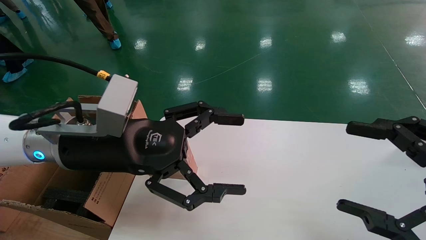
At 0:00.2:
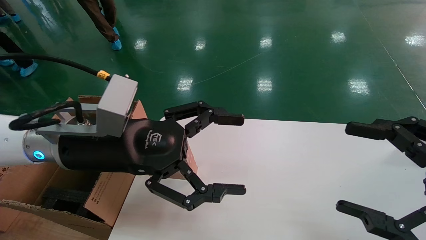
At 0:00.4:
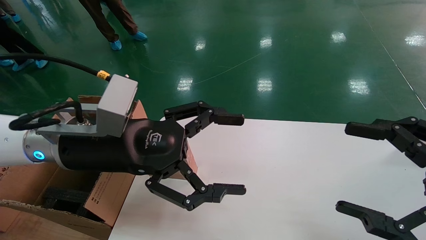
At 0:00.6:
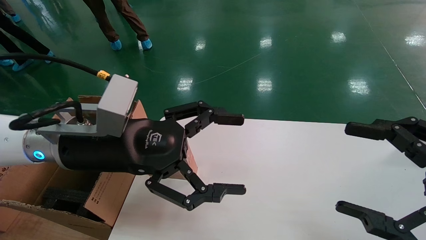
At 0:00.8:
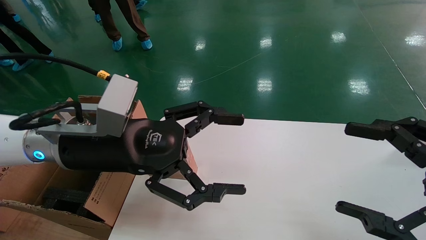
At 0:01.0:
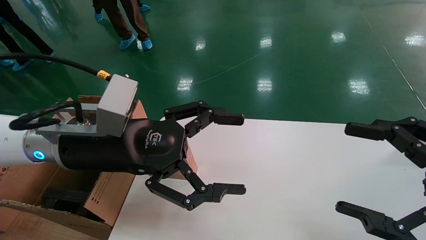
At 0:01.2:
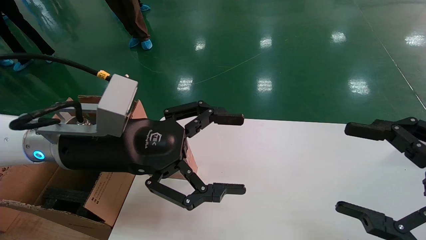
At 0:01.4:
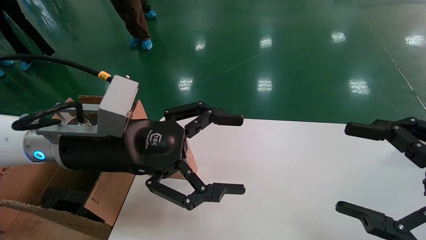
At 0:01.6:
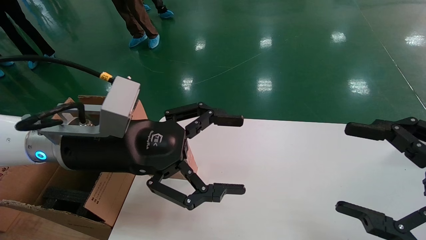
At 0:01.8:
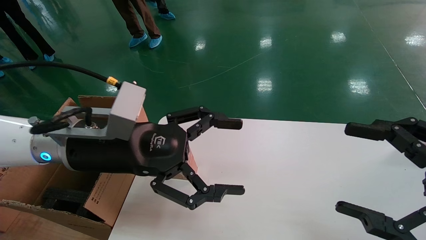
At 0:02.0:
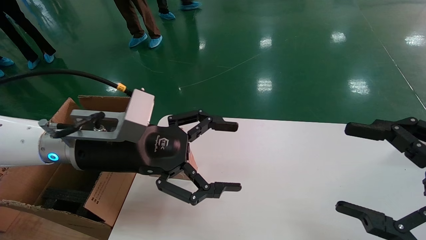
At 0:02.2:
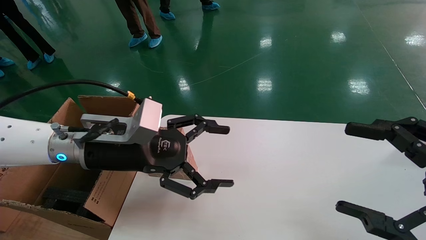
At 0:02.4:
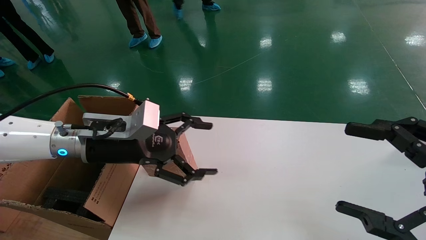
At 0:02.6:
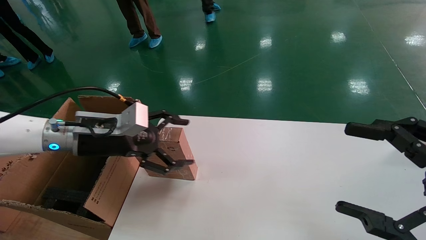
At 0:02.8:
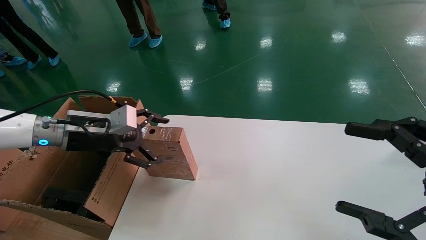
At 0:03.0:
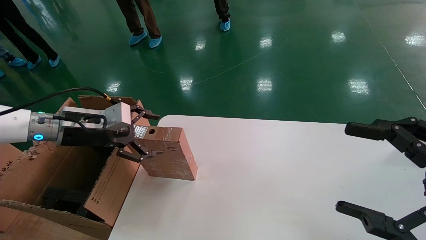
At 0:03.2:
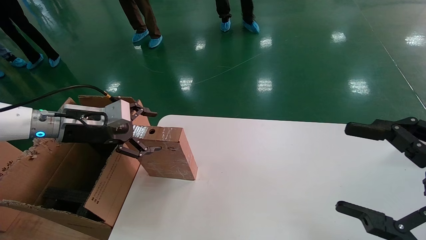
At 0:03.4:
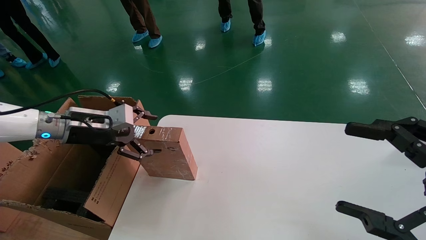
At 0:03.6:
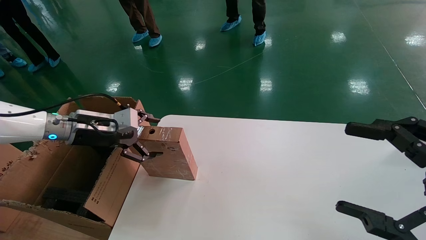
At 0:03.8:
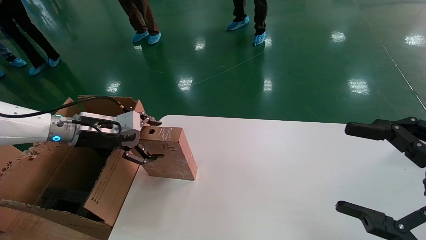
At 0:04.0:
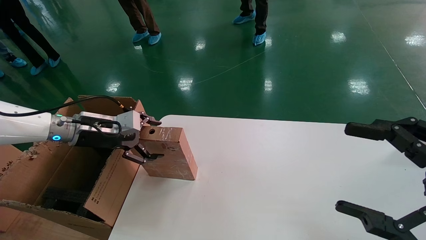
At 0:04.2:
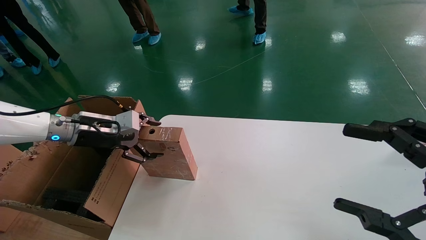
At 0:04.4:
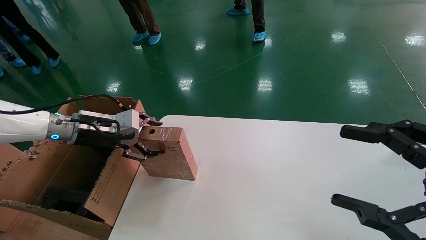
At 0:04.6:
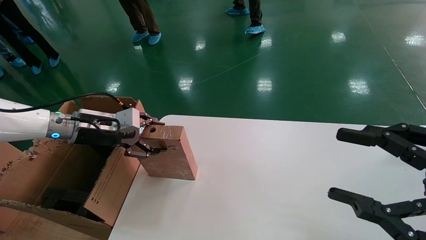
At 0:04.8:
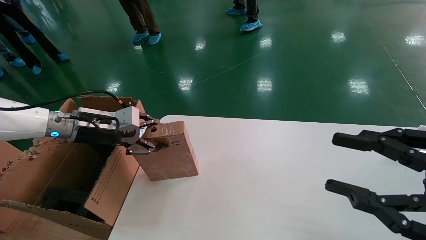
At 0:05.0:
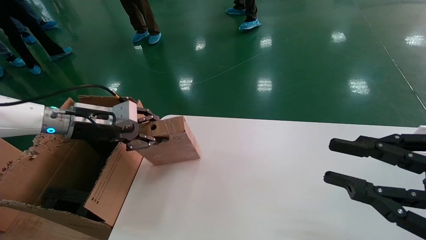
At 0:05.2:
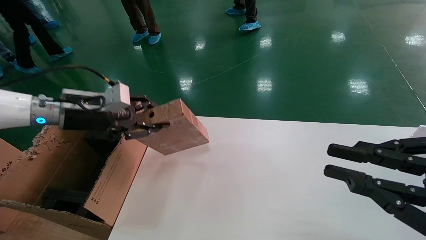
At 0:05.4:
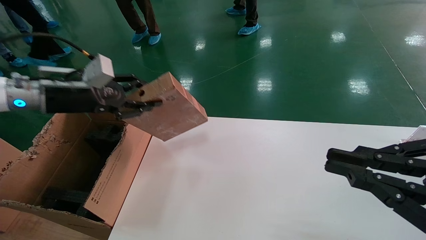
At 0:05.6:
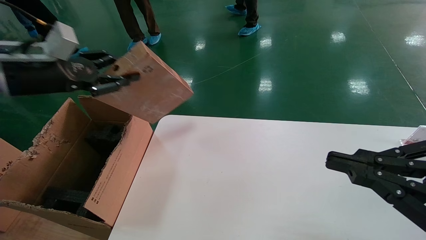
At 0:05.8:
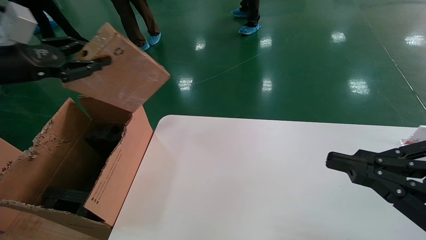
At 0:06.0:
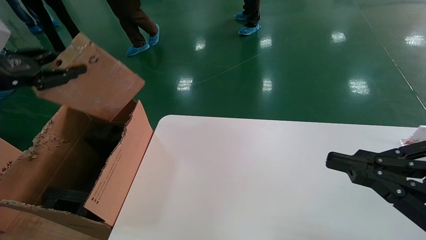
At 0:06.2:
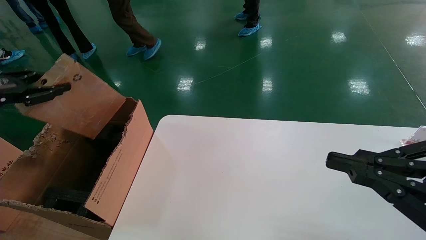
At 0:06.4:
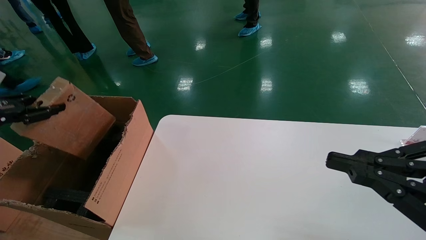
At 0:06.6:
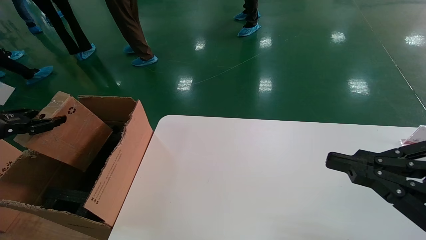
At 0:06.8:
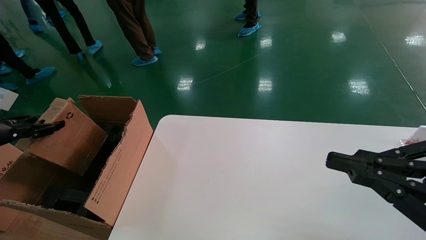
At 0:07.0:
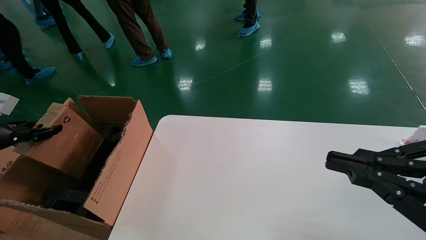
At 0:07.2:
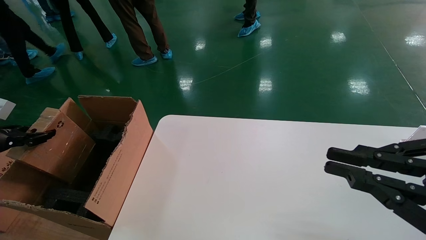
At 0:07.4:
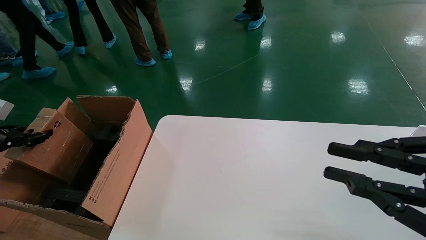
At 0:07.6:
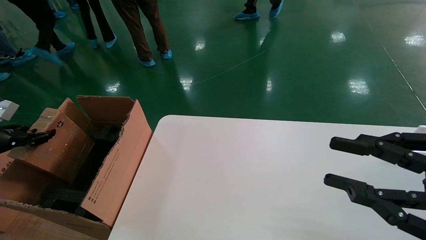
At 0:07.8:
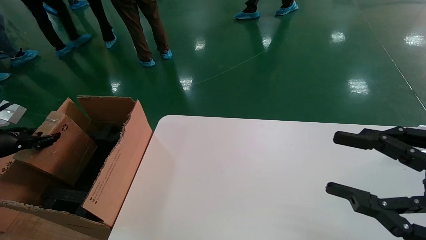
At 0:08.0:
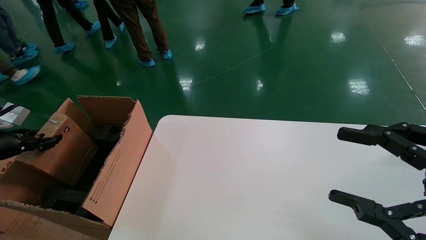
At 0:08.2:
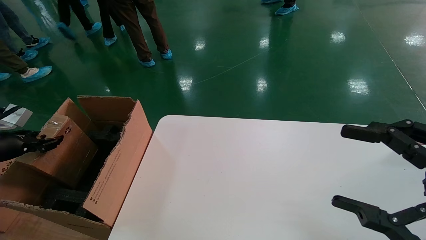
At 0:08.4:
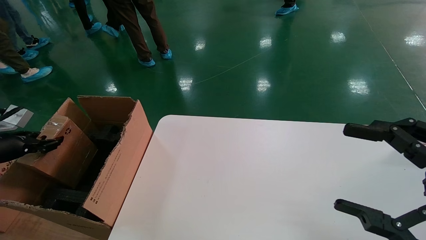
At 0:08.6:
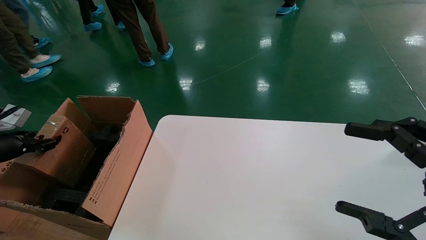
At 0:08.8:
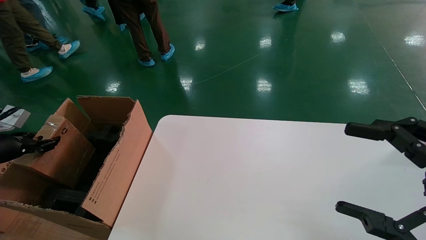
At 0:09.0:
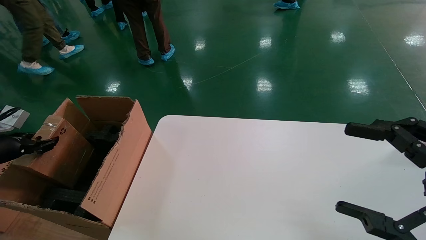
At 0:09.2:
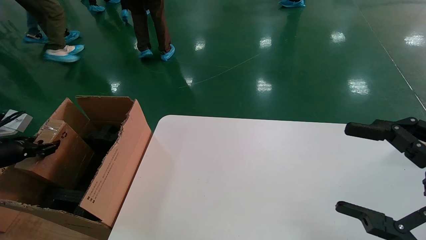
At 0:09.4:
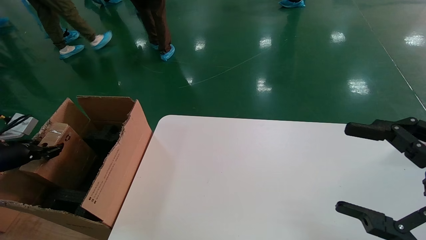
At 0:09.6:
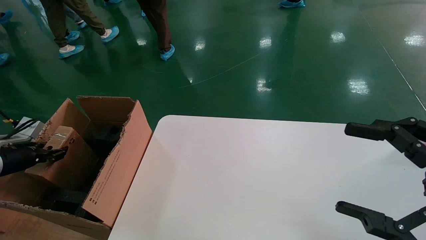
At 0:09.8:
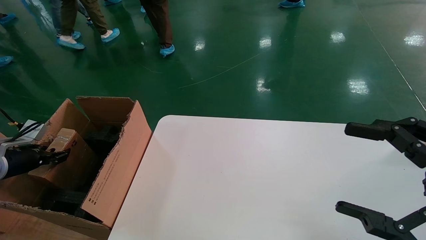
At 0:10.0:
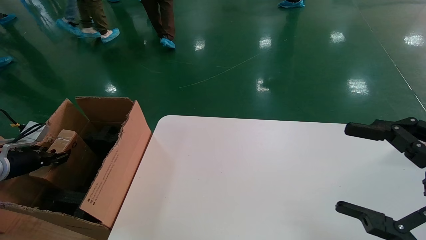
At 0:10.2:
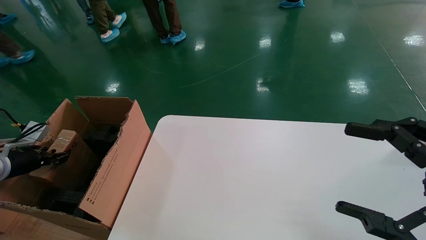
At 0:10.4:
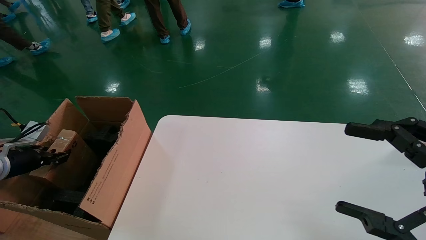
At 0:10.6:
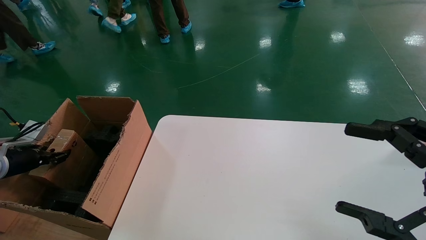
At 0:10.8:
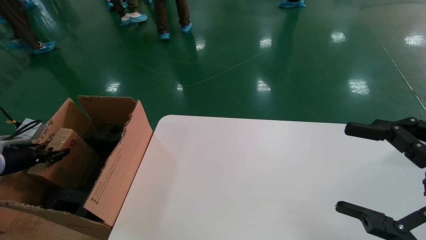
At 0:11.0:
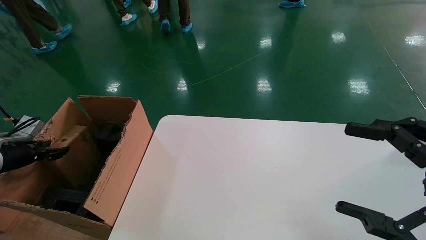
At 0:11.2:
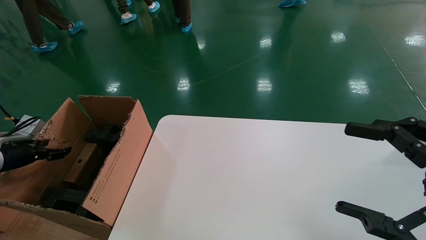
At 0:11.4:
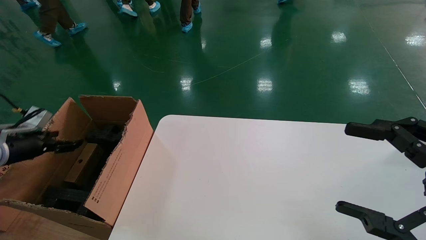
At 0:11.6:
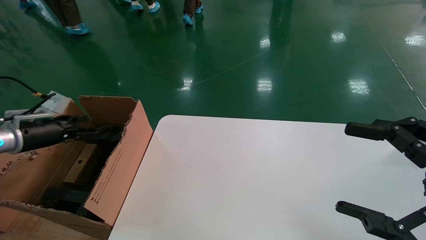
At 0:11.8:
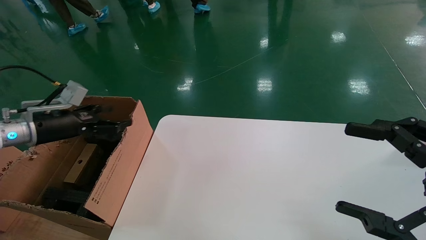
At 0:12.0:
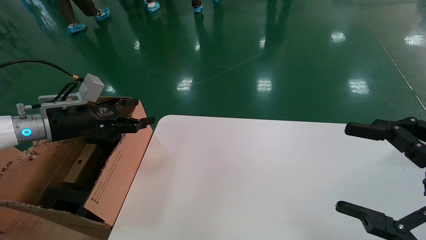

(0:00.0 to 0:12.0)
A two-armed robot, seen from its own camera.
Task of the whole recording: put the box on the table into the big box.
Step, 0:02.2 - 0:05.2: Pick up the mouse and the power cord paper box.
Step, 0:05.4 - 0:11.4: Place the mouse and the power cord paper box into the container.
0:00.0 - 0:01.6: The two grippers keep their place.
0:01.6 - 0:03.0: The left gripper moves to the left and forward, about 20 cm.
0:03.0 - 0:04.4: The grippers make only small movements.
0:04.4 - 0:06.0: The left gripper moves to the left, upward and backward, some 20 cm, and closes its fingers, while the right gripper closes its fingers.
0:06.0 - 0:07.6: The left gripper moves downward and to the left, about 15 cm.
0:07.6 - 0:09.0: The right gripper opens its fingers.
0:09.0 - 0:10.4: The left gripper ends up approximately 5 cm from where it was.
0:10.4 - 0:12.0: The left gripper heads to the right and upward, covering about 20 cm, and opens.

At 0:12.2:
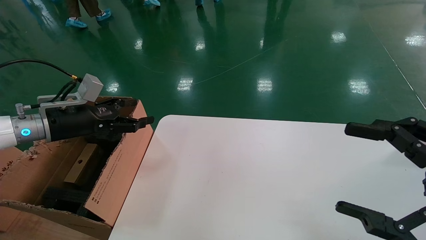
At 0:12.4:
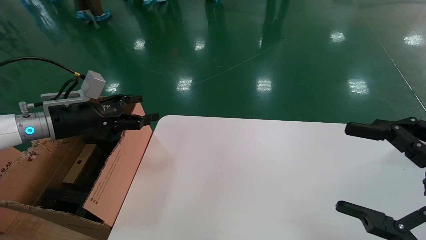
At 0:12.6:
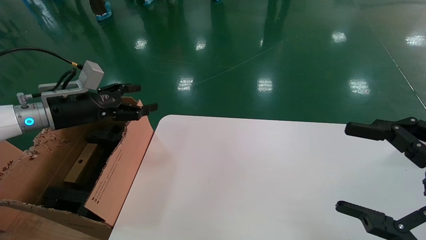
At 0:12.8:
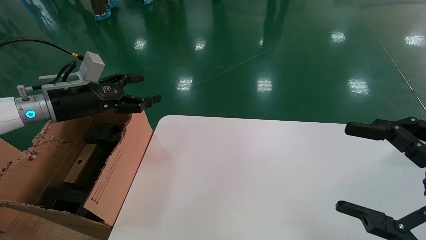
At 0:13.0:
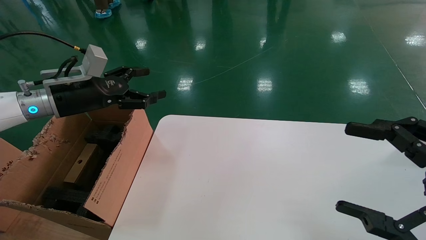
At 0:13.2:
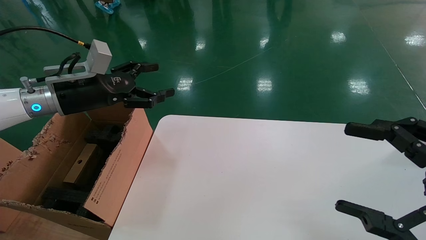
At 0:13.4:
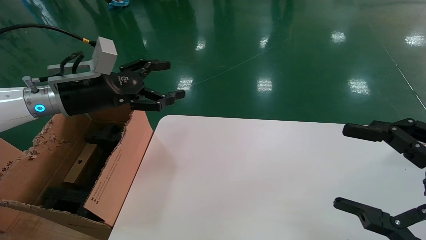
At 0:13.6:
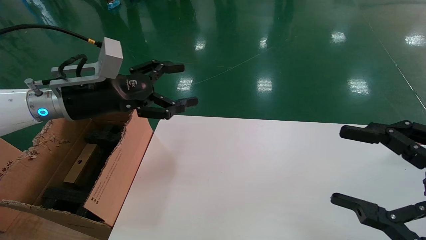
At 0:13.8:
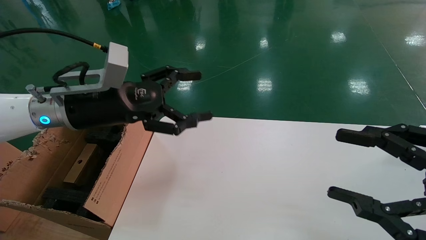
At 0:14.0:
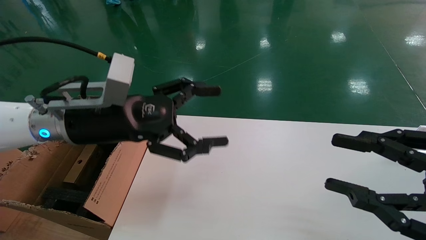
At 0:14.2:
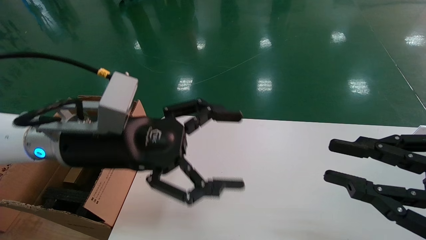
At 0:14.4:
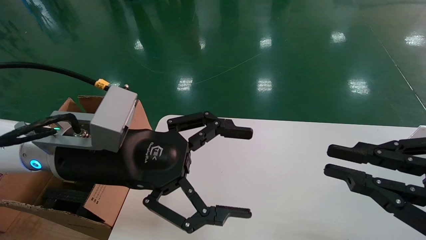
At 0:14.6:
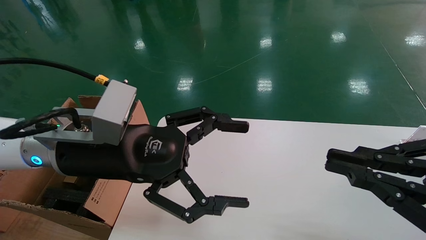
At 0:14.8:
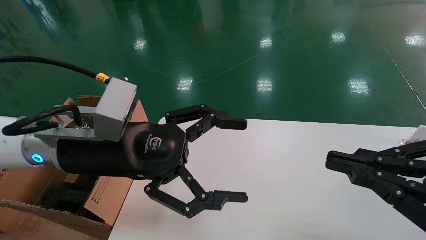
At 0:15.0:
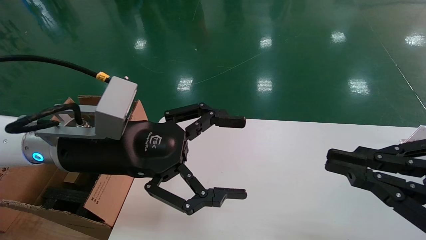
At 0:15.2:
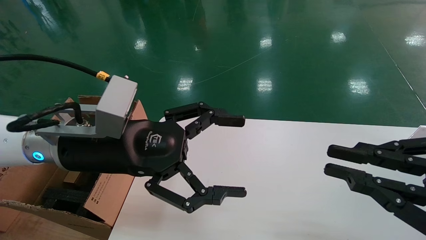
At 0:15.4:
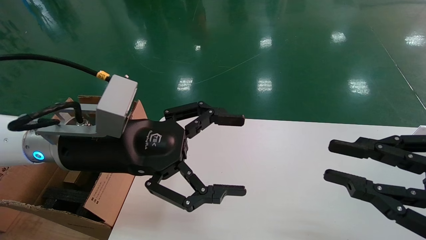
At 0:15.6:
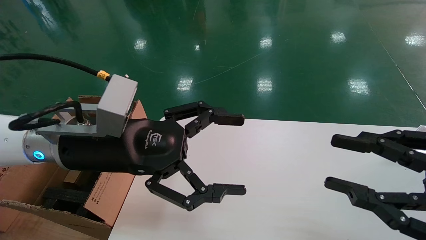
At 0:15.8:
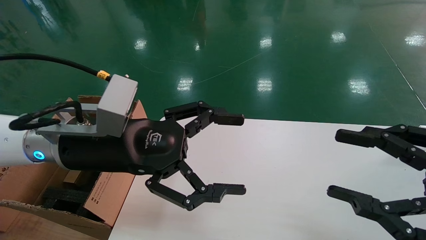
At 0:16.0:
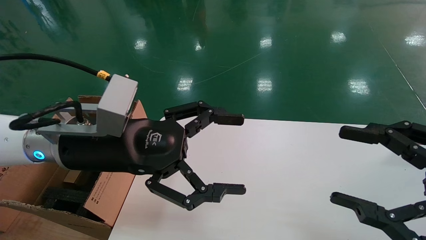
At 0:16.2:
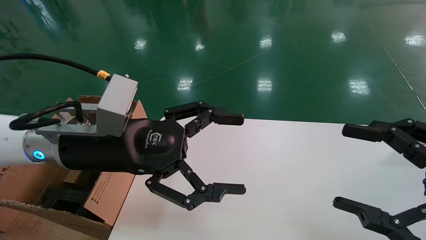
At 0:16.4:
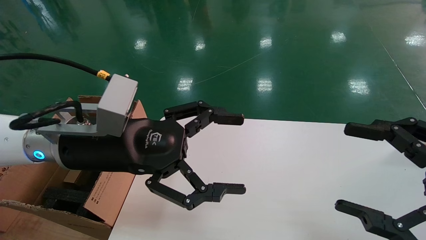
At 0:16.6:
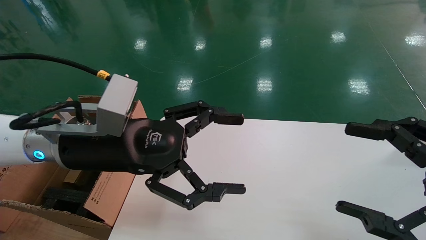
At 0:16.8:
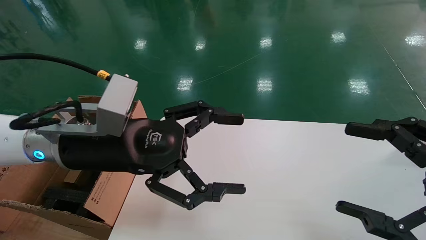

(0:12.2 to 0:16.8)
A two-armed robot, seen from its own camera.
Task of the whole recording: put the box on the table into the big box.
0:12.2 - 0:13.8: The left gripper goes about 15 cm to the right and upward.
0:13.8 - 0:15.2: The right gripper closes, while the left gripper travels to the right and backward by approximately 10 cm.
0:15.2 - 0:16.8: The right gripper opens up.
